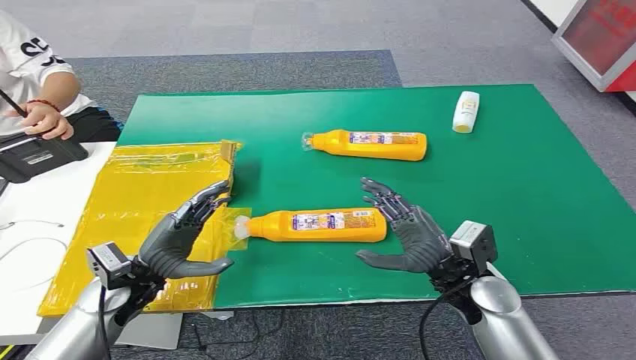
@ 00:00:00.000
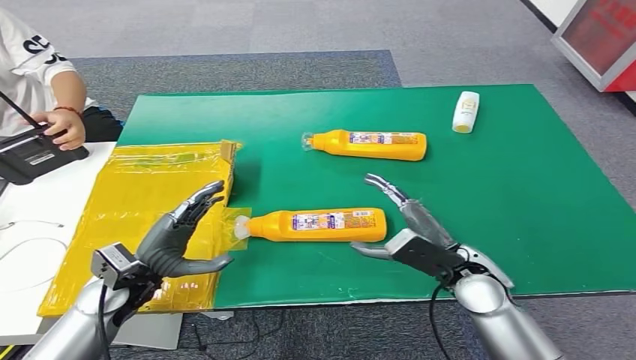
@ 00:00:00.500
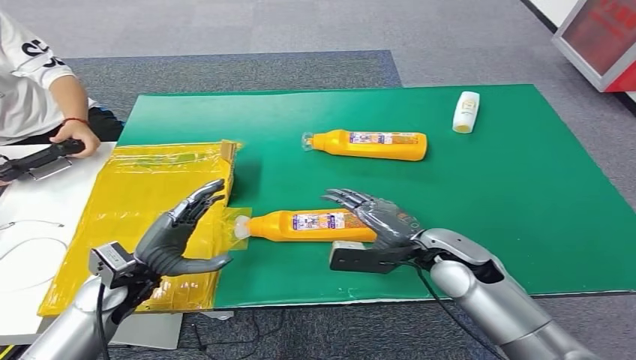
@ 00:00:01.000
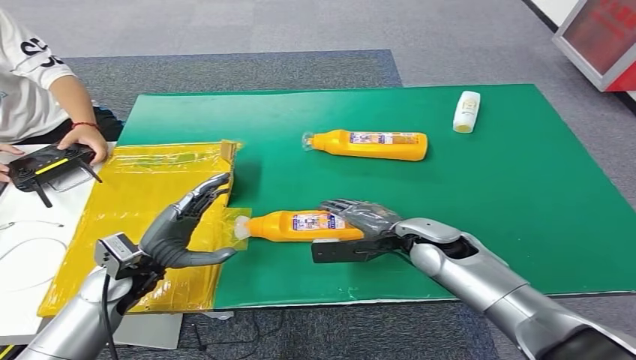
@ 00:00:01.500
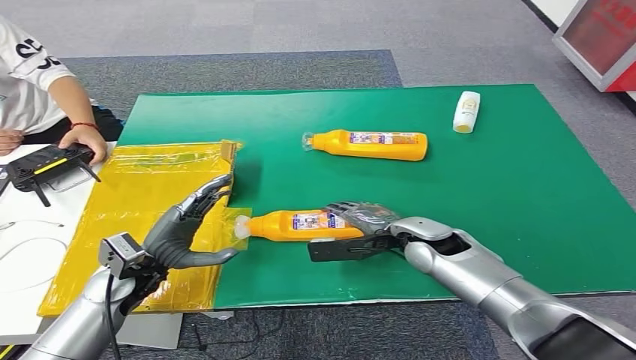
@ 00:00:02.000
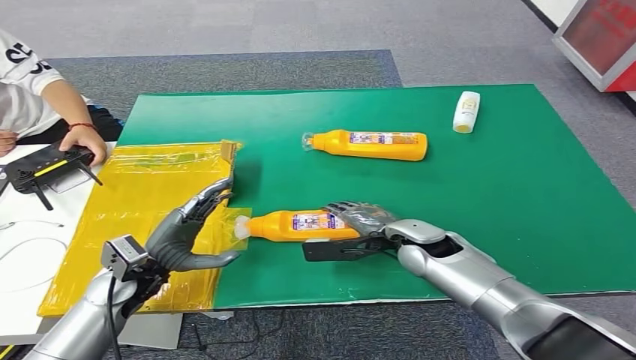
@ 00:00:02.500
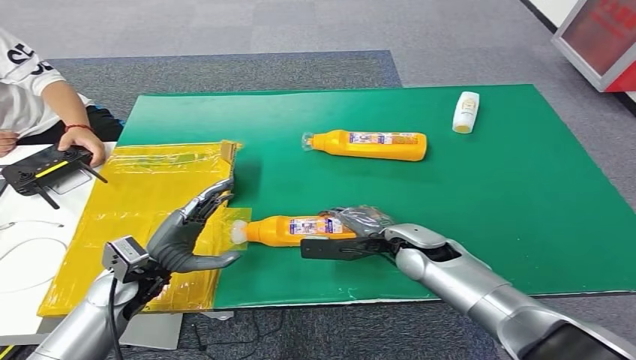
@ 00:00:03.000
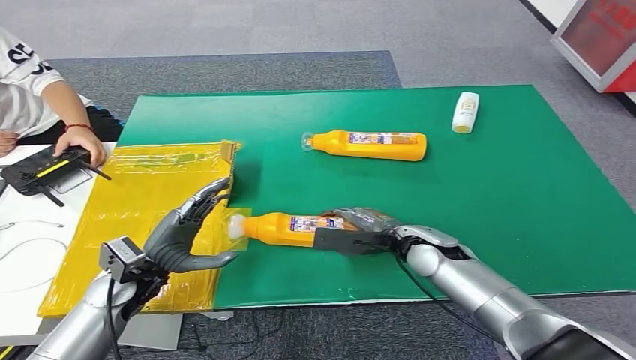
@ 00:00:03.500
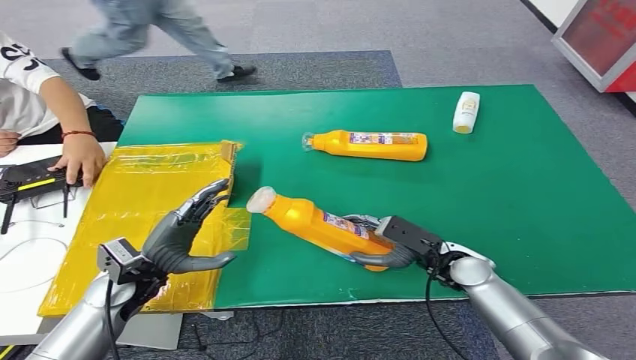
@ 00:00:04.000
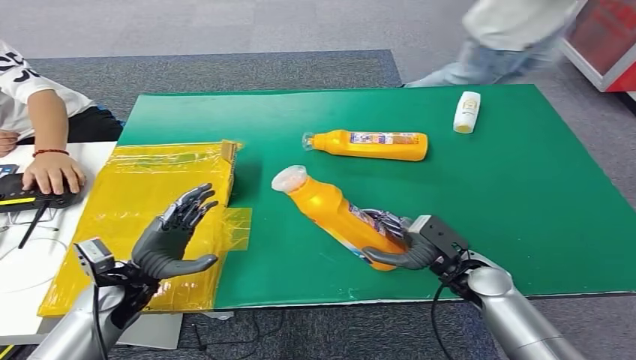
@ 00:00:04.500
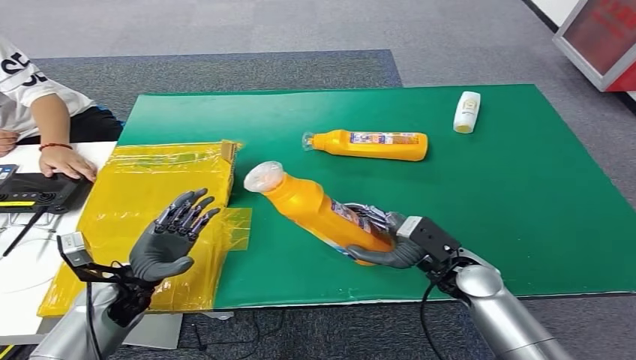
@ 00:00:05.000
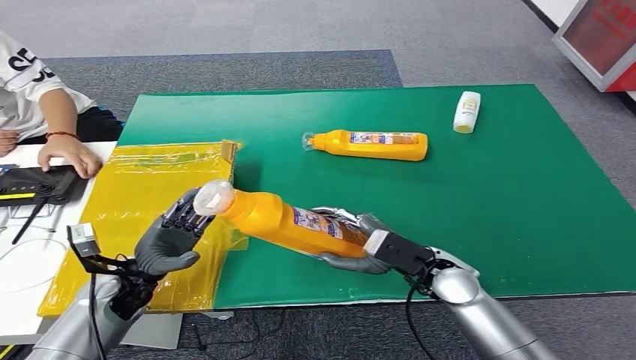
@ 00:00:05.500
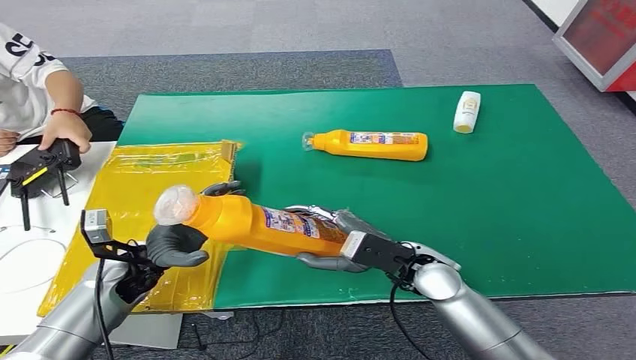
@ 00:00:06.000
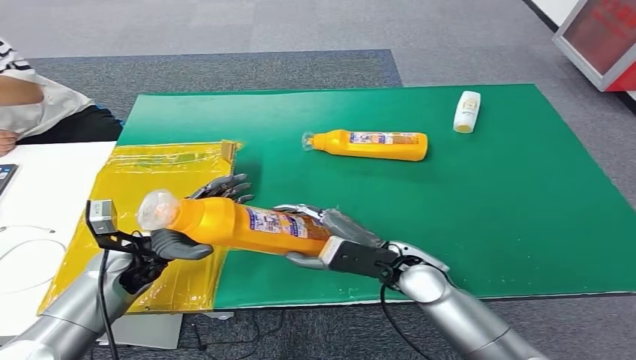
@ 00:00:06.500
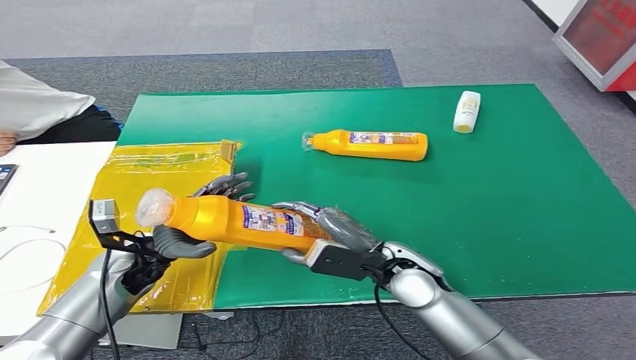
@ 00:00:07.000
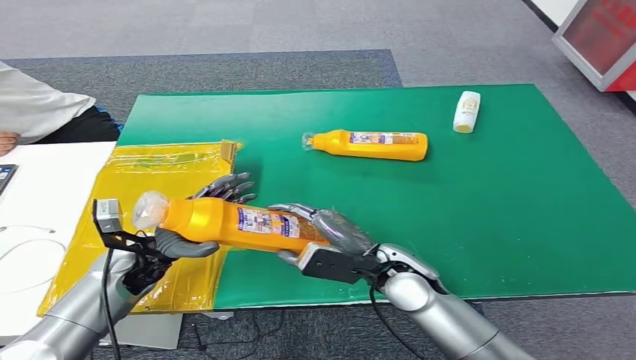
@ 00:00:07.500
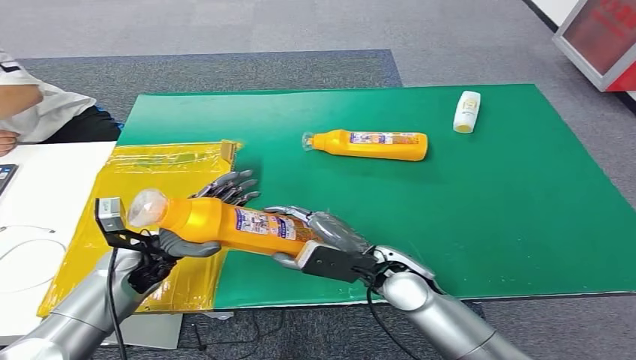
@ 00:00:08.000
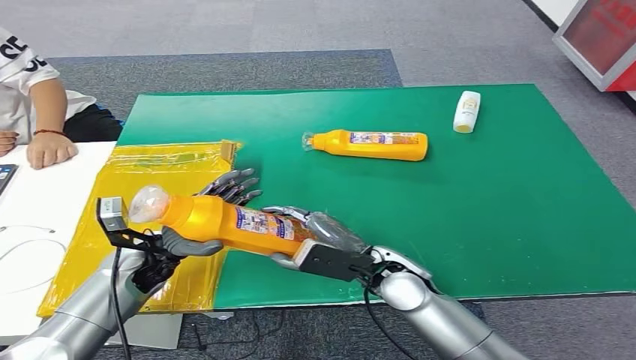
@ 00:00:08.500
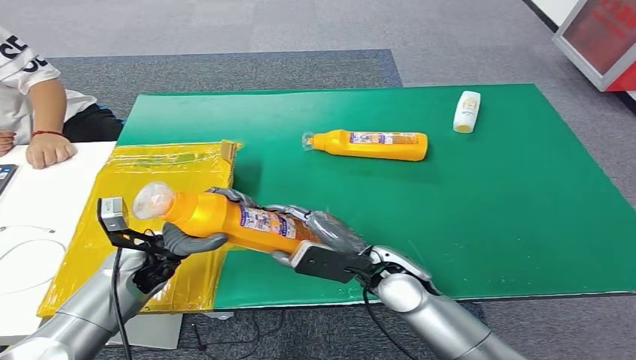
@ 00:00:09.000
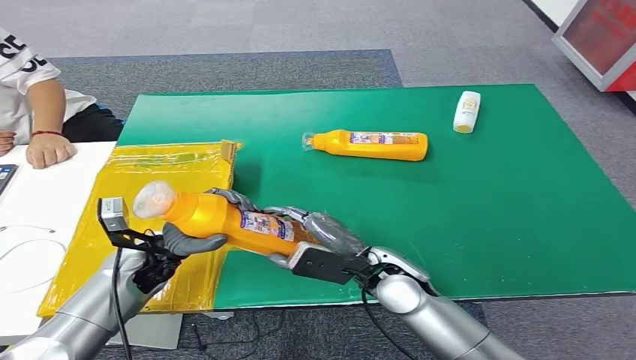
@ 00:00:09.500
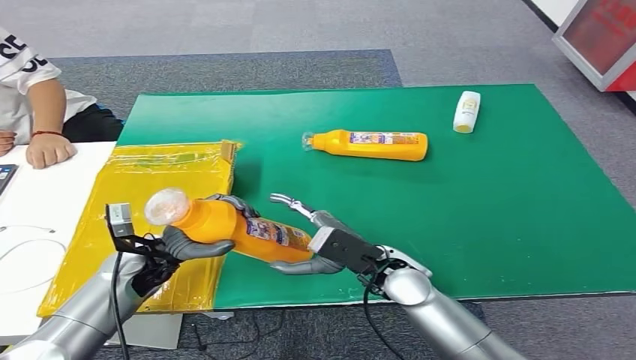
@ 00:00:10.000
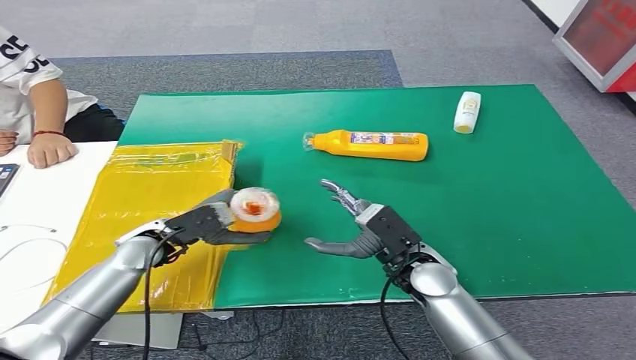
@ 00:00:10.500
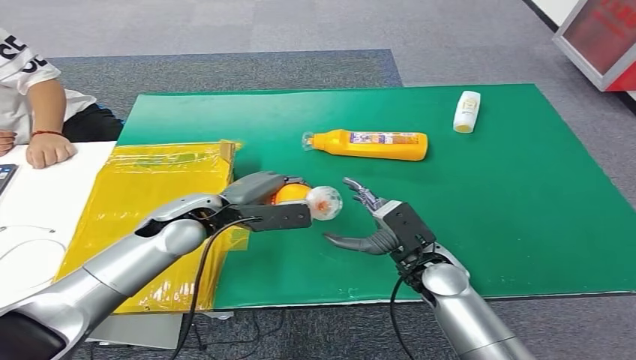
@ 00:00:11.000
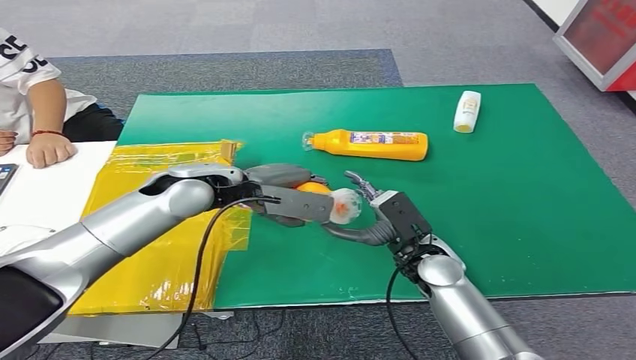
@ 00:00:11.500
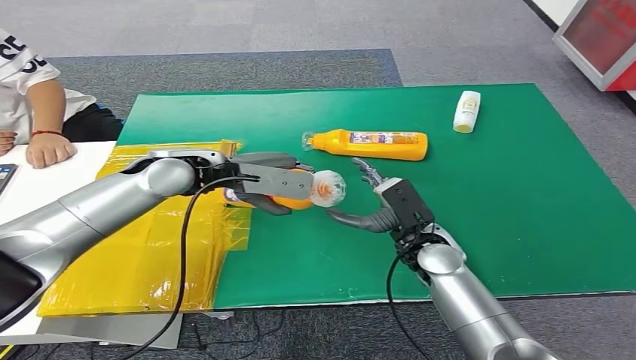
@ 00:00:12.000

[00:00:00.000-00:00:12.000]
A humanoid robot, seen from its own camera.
Step, 00:00:00.000 to 00:00:05.000: Pick up the bottle from the table.
00:00:06.000 to 00:00:10.000: There are only small adjustments of the hands.

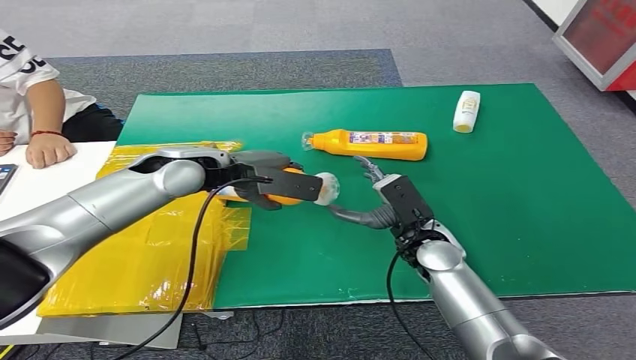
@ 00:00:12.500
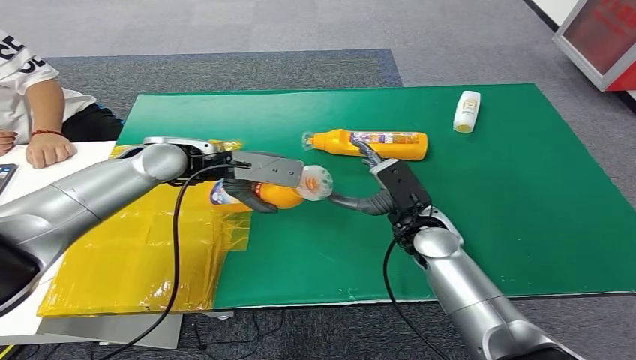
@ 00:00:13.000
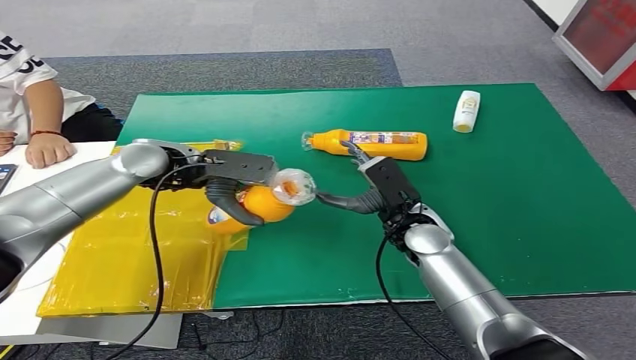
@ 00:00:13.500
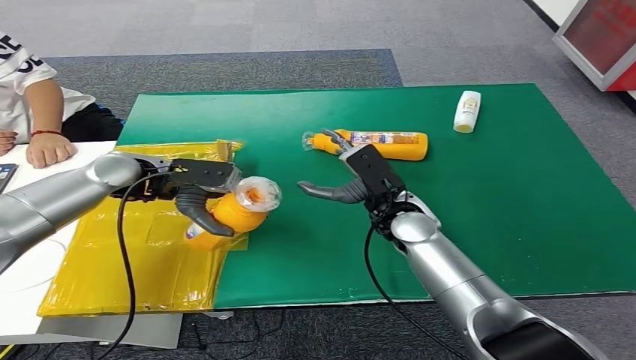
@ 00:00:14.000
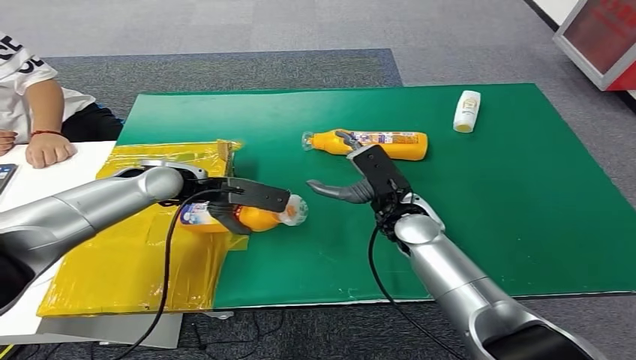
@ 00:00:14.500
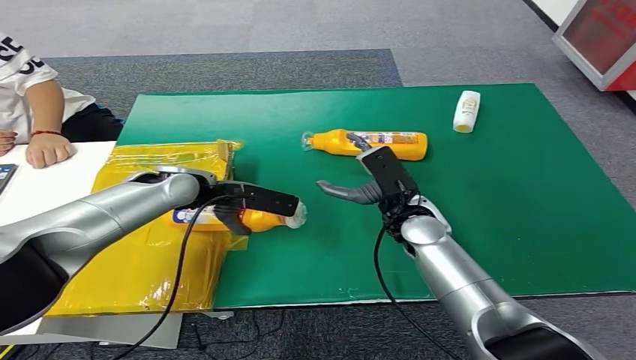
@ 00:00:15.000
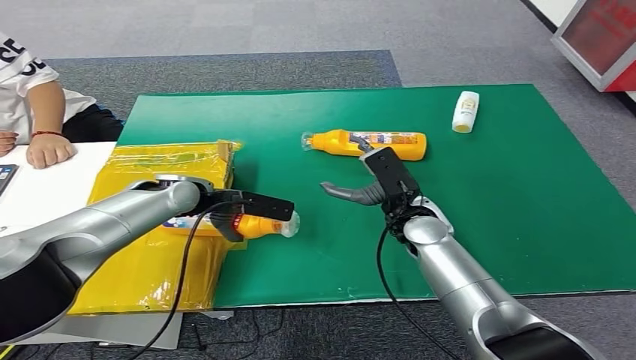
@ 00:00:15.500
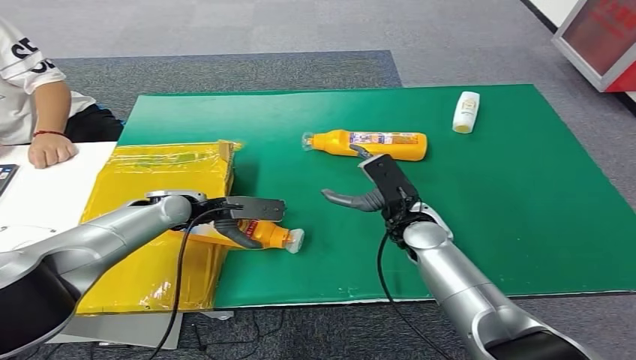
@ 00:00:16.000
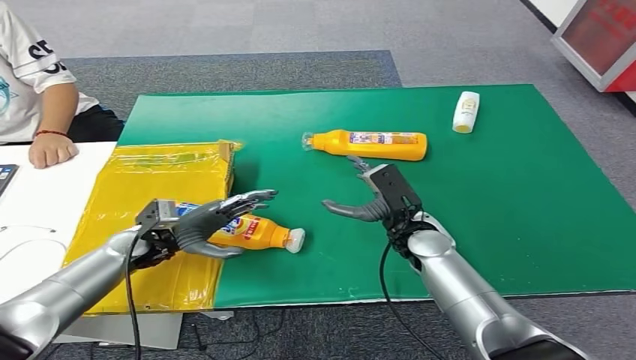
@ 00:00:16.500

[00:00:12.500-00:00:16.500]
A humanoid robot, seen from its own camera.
Step, 00:00:12.500 to 00:00:16.500: Turn the bottle to the front side.
00:00:12.500 to 00:00:14.500: The right hand moves about 5 cm.
